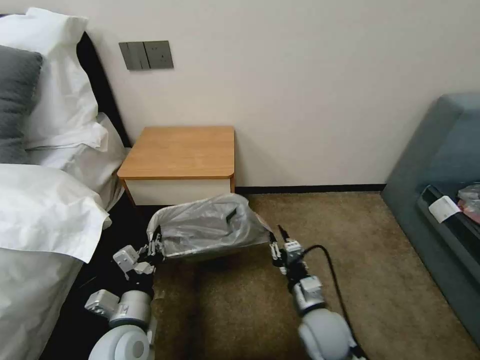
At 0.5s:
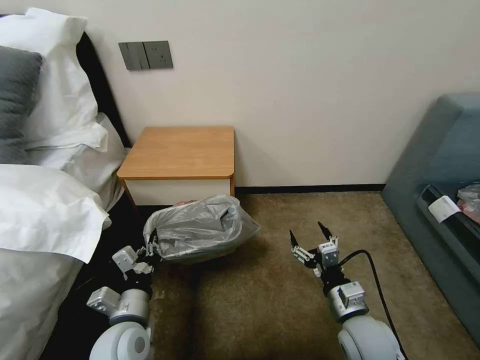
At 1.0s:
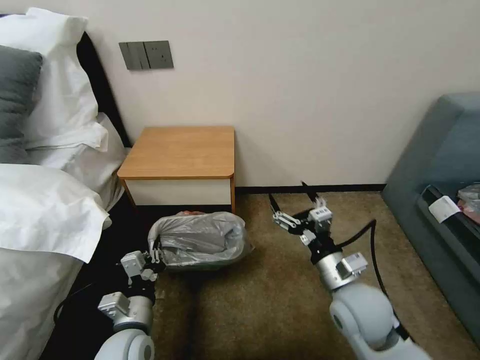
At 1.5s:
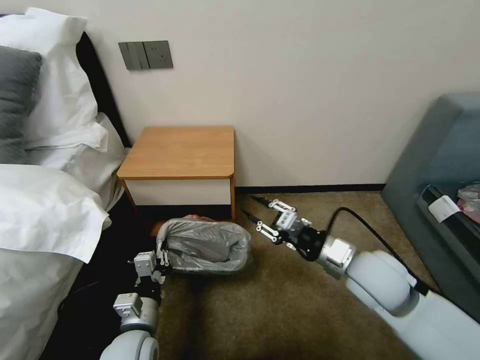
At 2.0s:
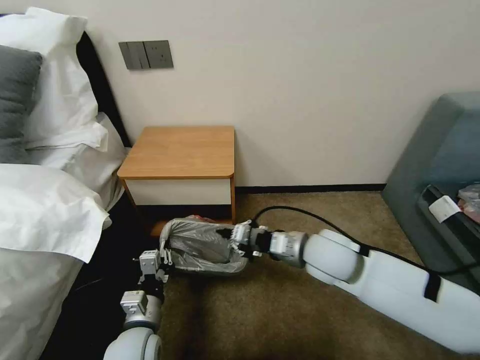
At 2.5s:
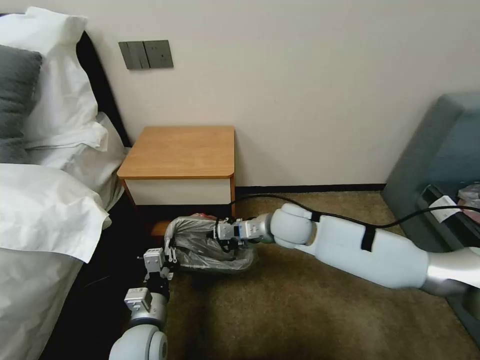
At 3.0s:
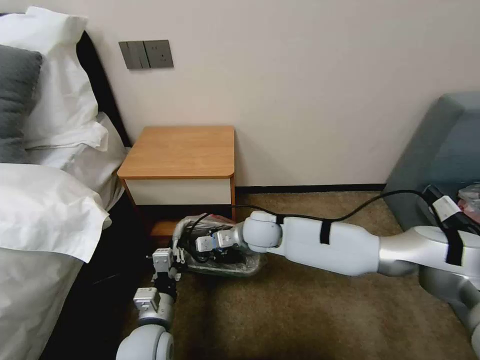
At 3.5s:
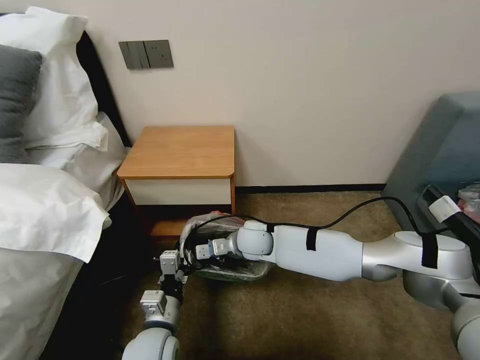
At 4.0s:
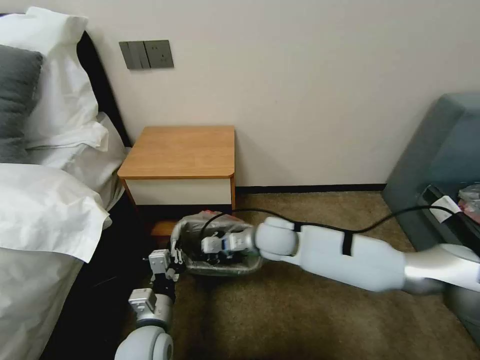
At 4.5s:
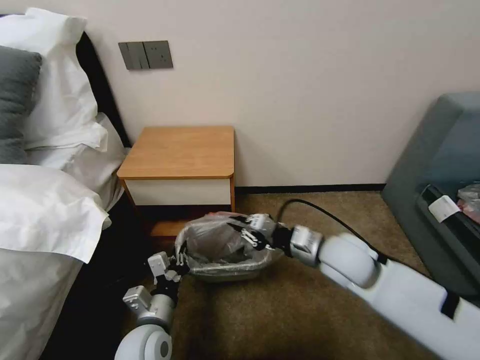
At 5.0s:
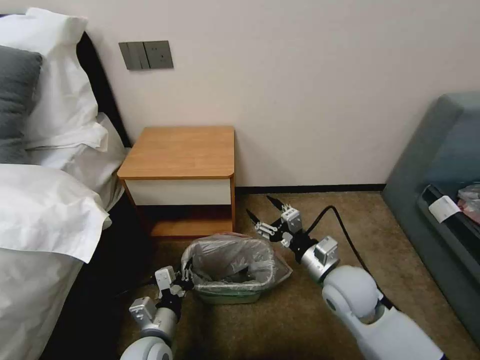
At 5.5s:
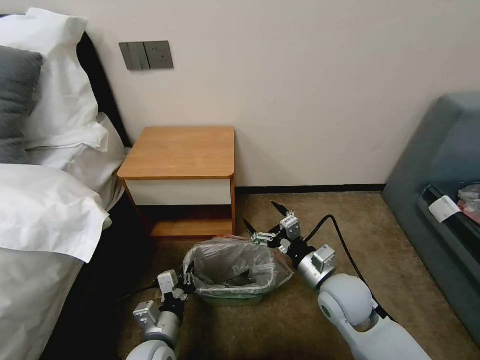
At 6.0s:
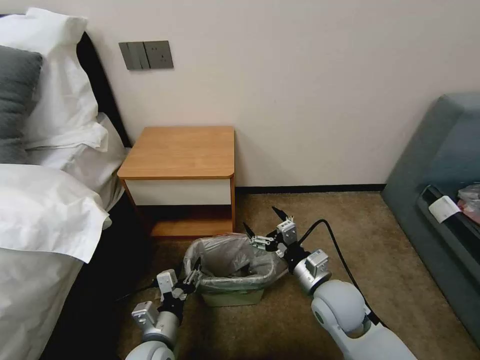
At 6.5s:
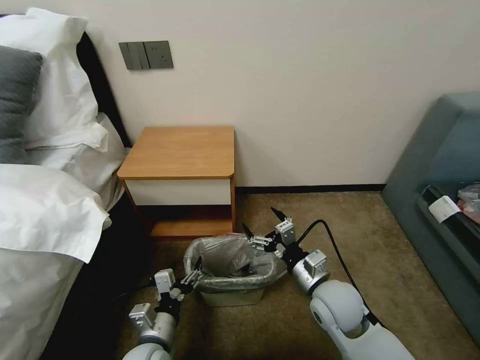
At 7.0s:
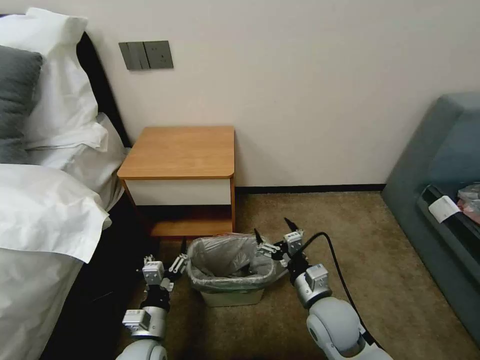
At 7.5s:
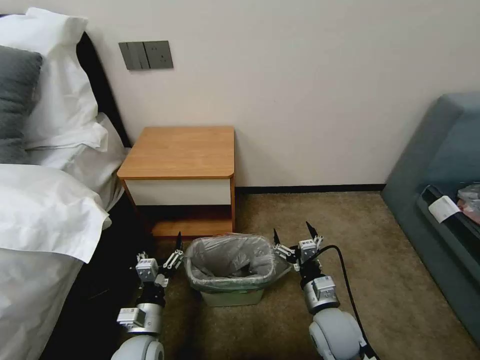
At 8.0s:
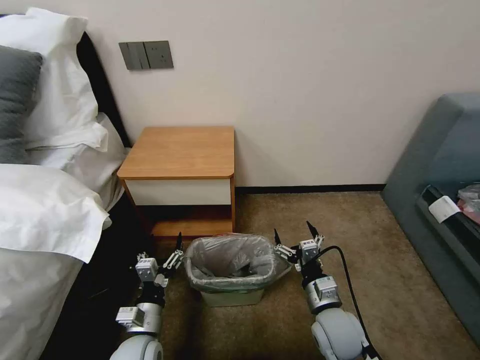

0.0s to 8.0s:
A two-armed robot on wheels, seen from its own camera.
Task of the whole recording: Pick up the garbage bag from the table and place it over the trash can.
0.0s to 2.0s: The right gripper travels upward and forward by some 20 cm, and opens and closes again.
2.0s to 4.0s: The right gripper goes roughly 10 cm to the left and forward.
4.0s to 6.0s: The left gripper opens its fingers. Meanwhile the right gripper shifts approximately 15 cm backward and to the right, and opens up.
6.0s to 8.0s: The right gripper moves downward, some 5 cm.

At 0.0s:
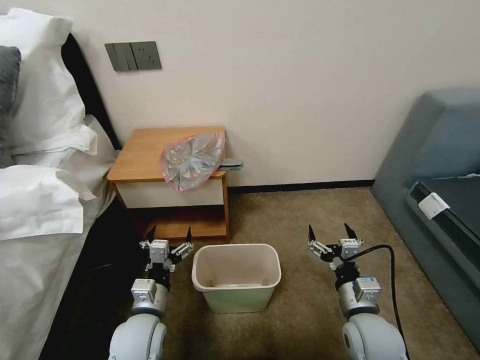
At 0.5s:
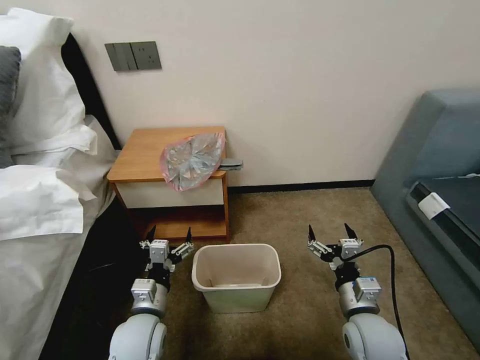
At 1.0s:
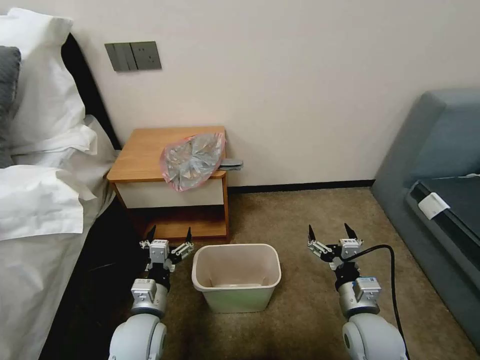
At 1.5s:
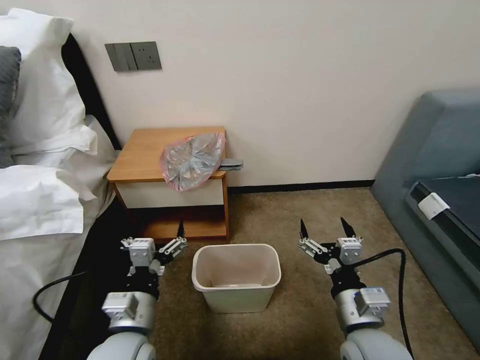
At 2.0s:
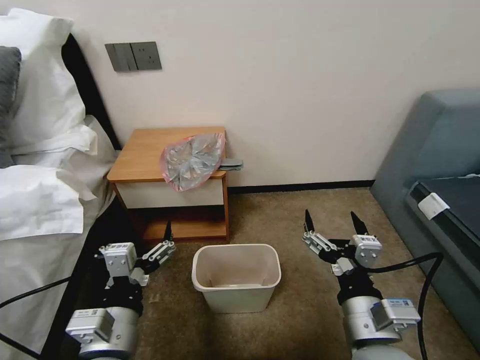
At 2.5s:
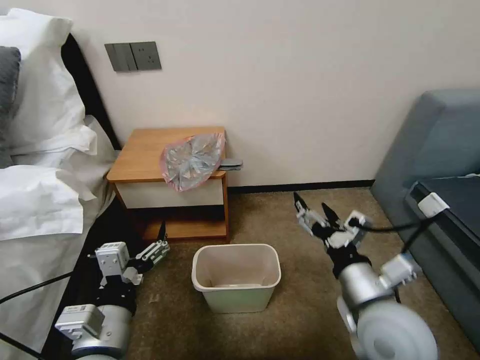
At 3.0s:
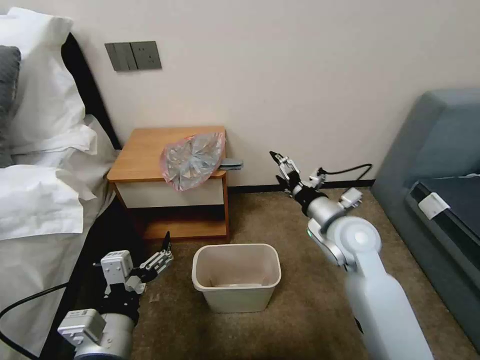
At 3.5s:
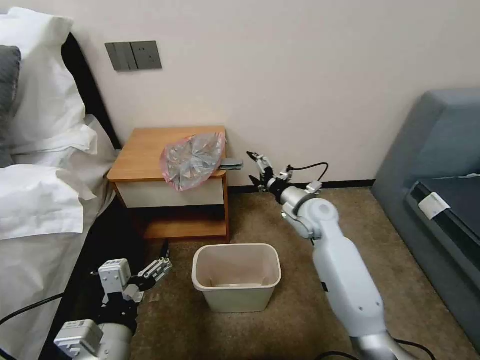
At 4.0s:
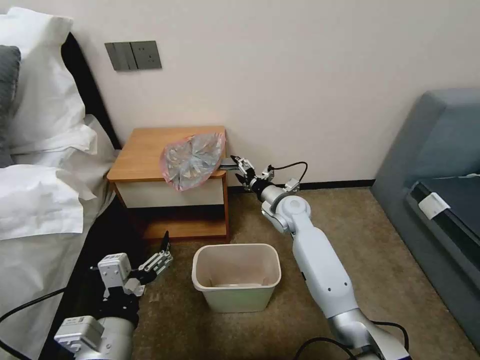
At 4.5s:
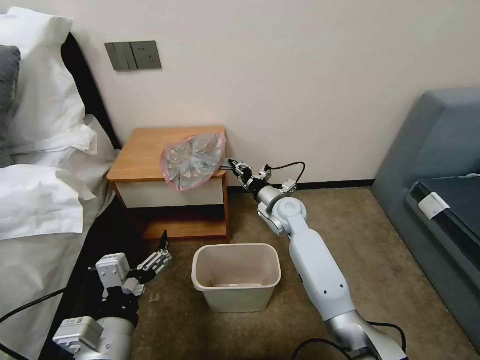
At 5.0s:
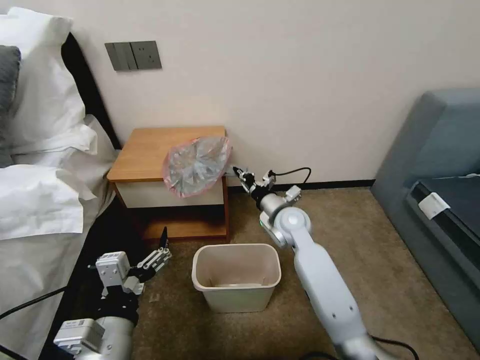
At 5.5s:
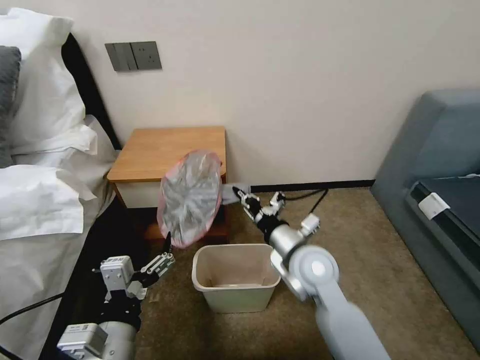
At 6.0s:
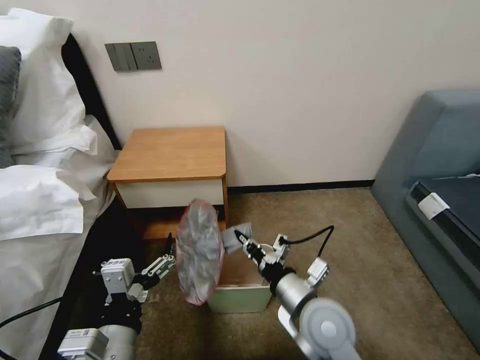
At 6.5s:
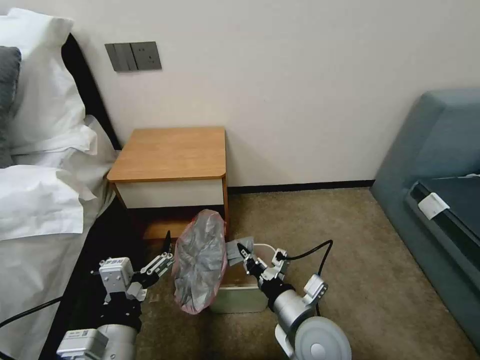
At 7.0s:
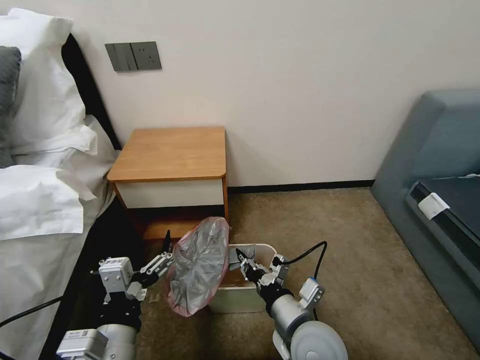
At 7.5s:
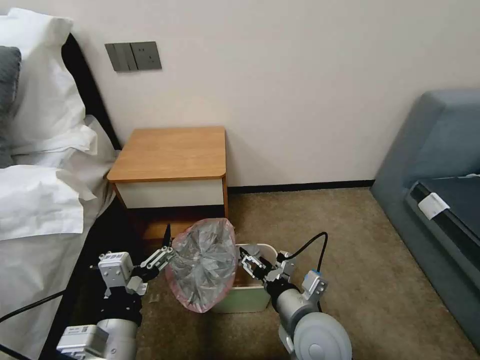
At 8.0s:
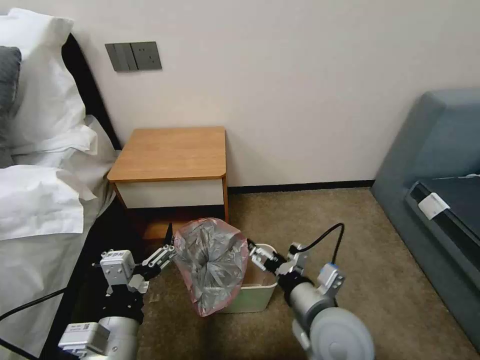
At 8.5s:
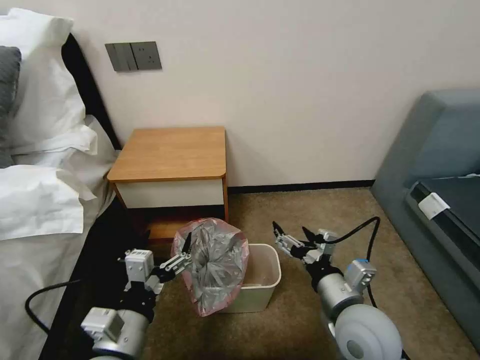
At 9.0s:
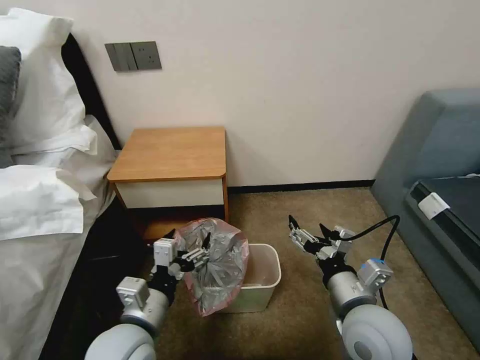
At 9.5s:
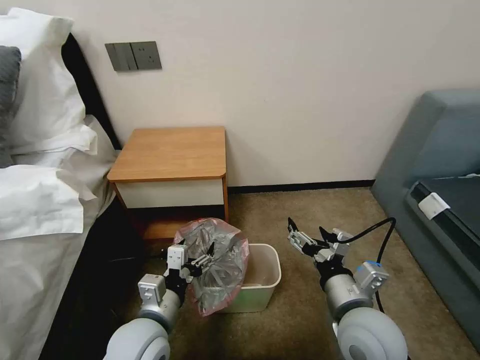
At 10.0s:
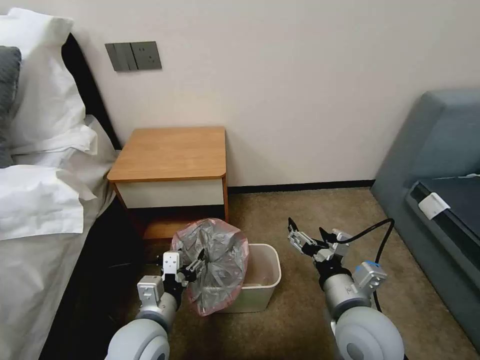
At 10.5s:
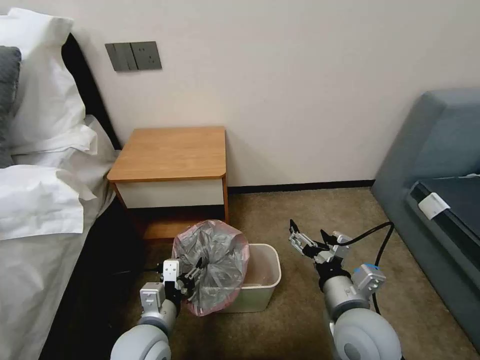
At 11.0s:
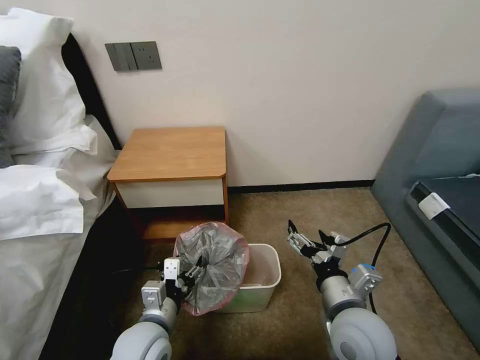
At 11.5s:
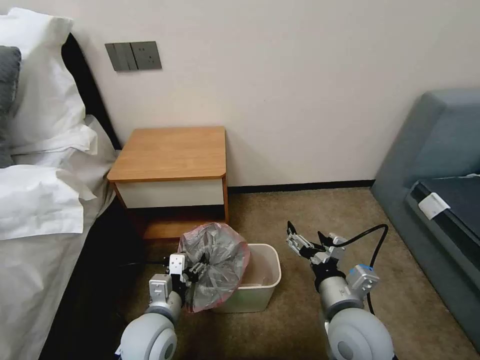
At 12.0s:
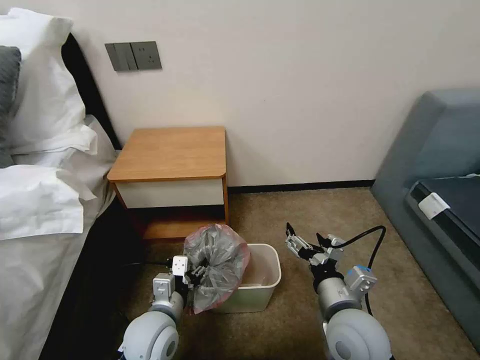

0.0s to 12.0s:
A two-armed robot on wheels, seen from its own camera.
Task of the whole recording: Pick up the garbage bag from the table and place it over the trash can.
2.0s to 4.0s: The right gripper is displaced forward by some 35 cm.
4.0s to 6.0s: The right gripper moves backward, approximately 25 cm, and closes its fingers.
6.0s to 8.0s: The right gripper opens up.
8.0s to 10.0s: The left gripper moves forward and downward, some 10 cm.
10.0s to 12.0s: The grippers stay close to where they were, moving slightly.

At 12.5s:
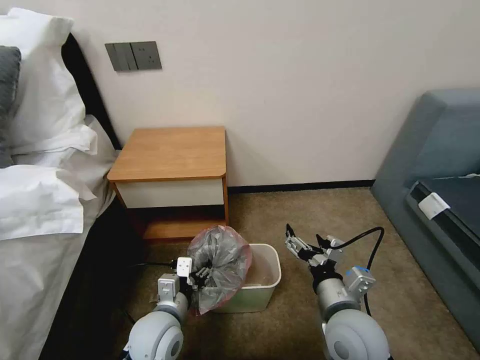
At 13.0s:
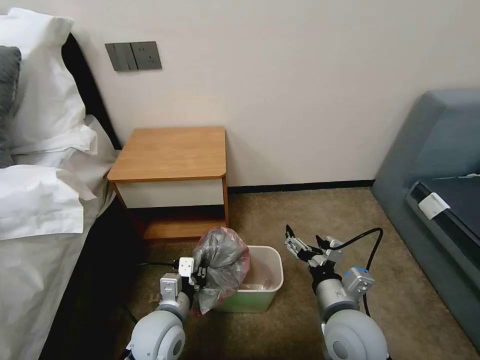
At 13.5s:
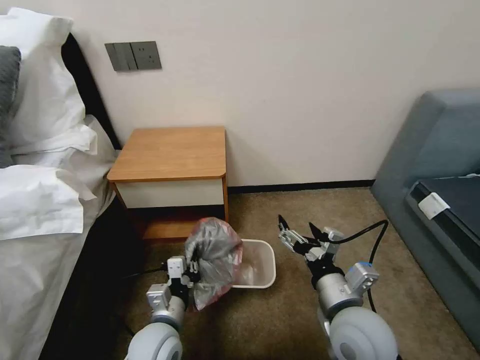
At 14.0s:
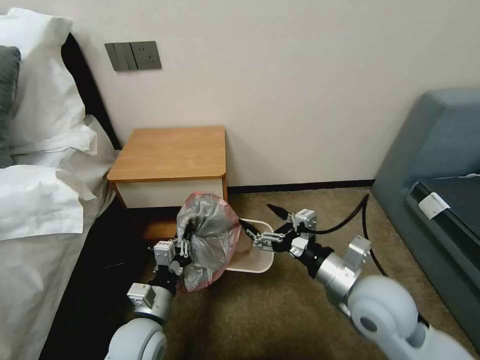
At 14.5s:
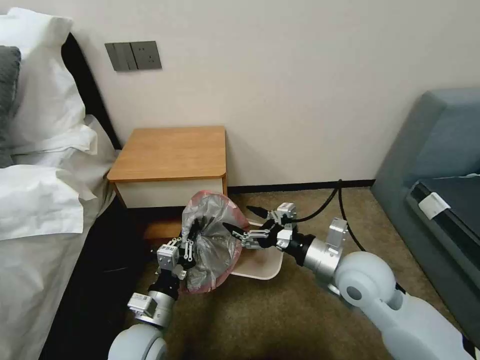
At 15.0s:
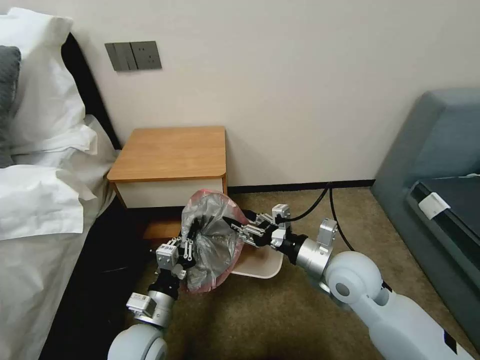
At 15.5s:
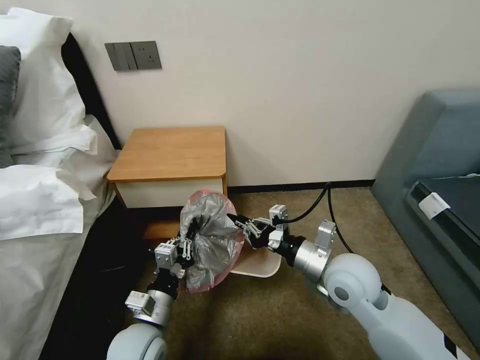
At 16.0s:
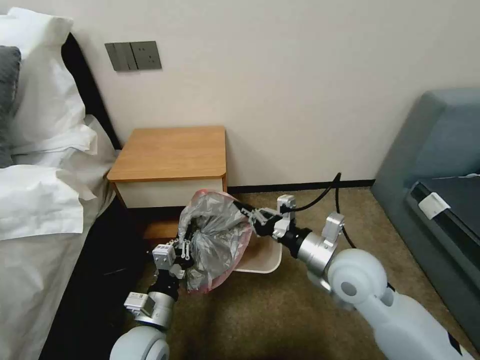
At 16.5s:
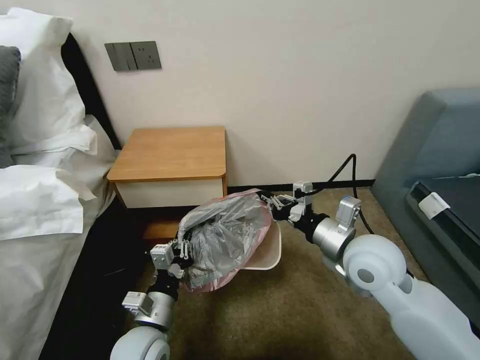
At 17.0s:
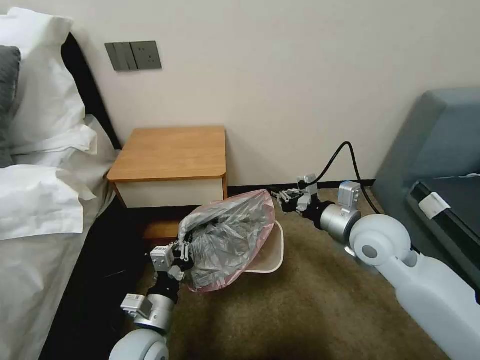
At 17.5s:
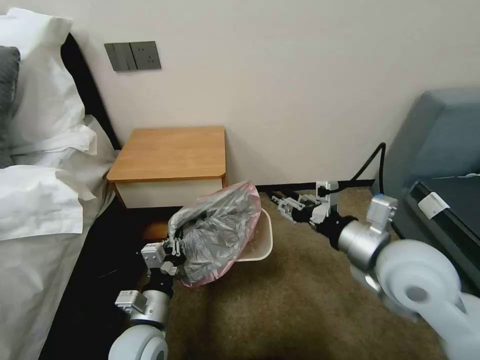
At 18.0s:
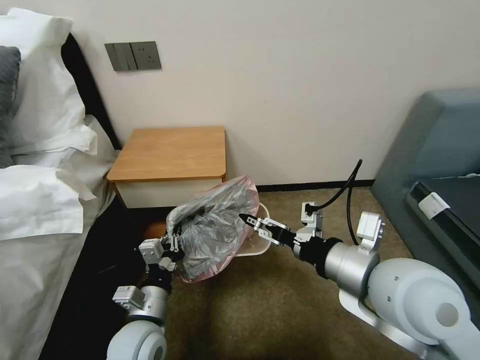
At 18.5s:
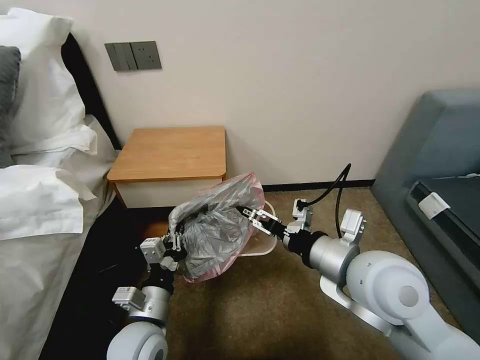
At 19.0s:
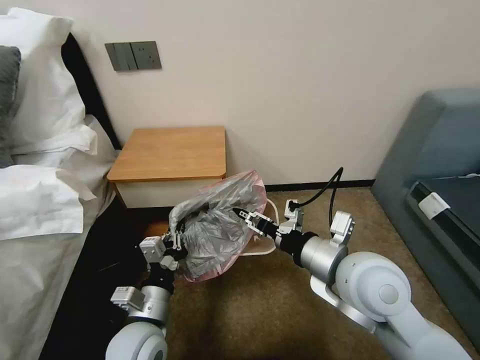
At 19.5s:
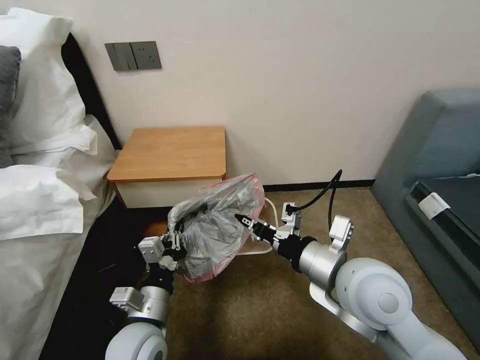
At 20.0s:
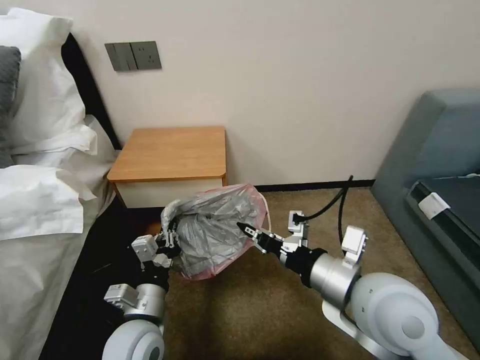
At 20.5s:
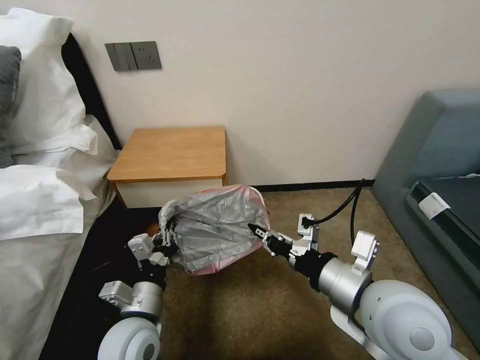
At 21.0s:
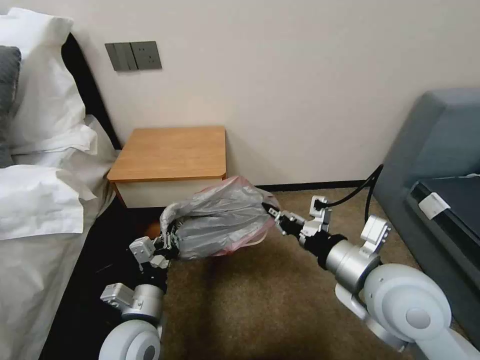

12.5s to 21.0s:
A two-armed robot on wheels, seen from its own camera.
Task of the whole recording: Pick up the garbage bag from the table and place it over the trash can.
12.5s to 14.5s: The left gripper closes up. The right gripper travels forward and upward by some 10 cm.
14.5s to 16.5s: The right gripper closes up.
16.5s to 19.0s: The right gripper travels backward by some 5 cm, and opens.
19.0s to 21.0s: The right gripper closes up.
